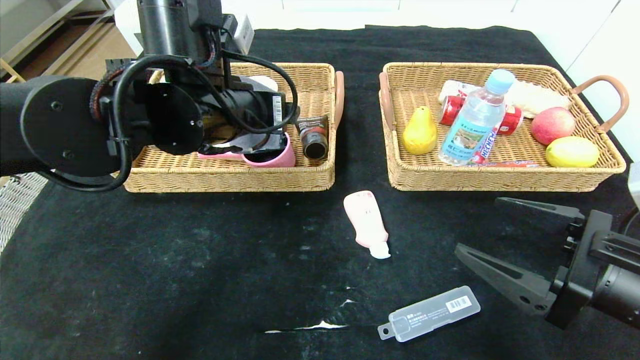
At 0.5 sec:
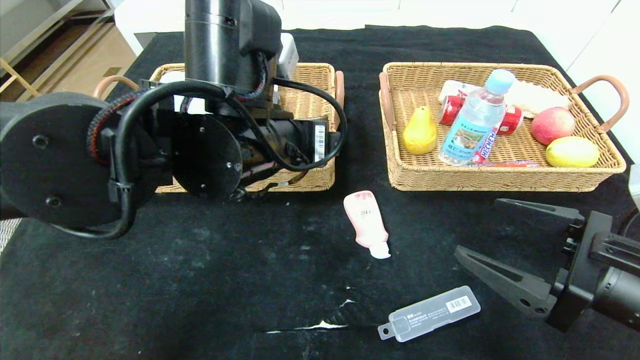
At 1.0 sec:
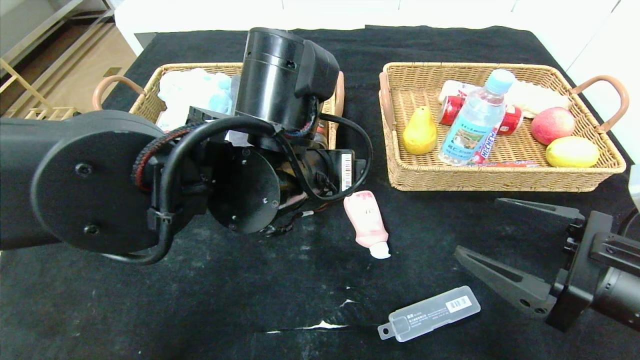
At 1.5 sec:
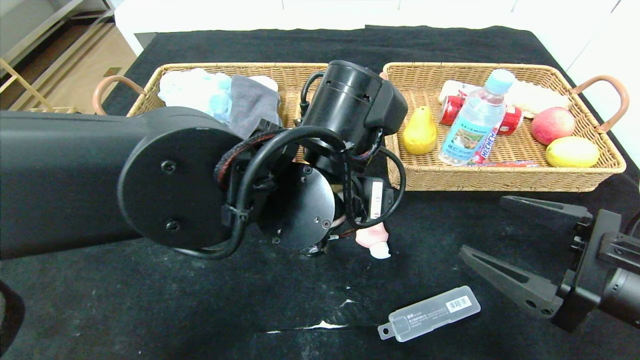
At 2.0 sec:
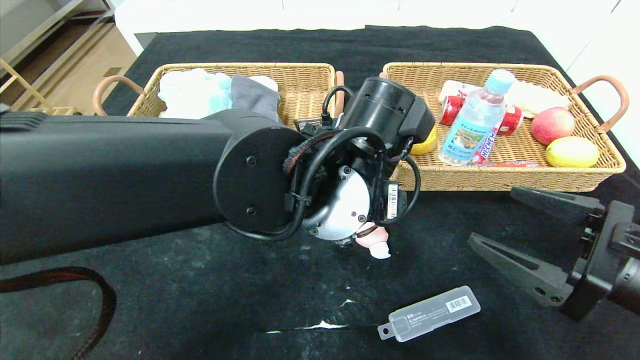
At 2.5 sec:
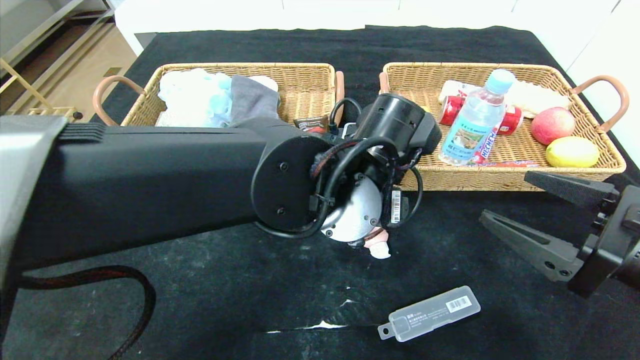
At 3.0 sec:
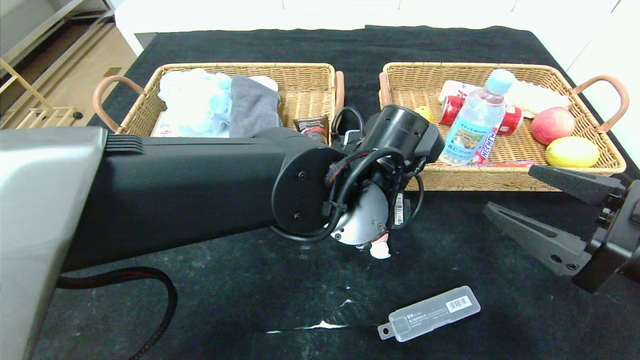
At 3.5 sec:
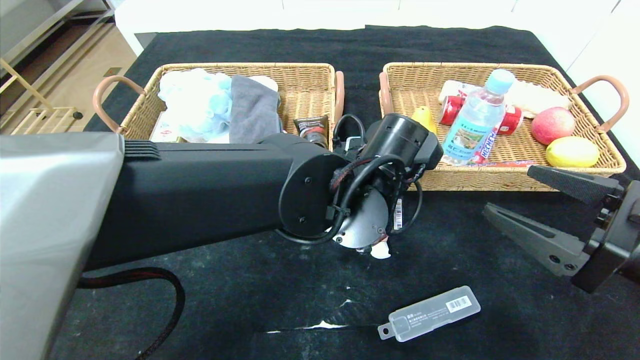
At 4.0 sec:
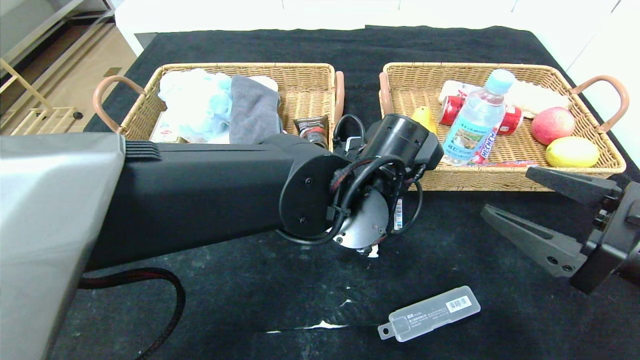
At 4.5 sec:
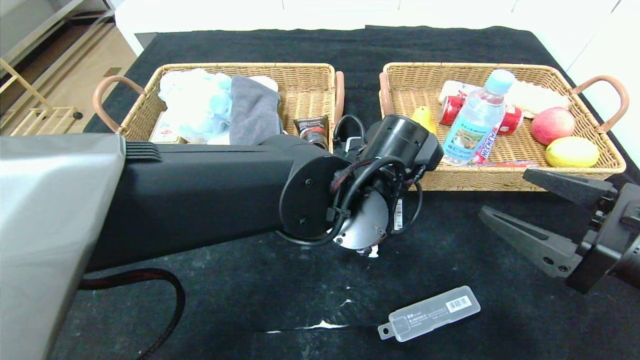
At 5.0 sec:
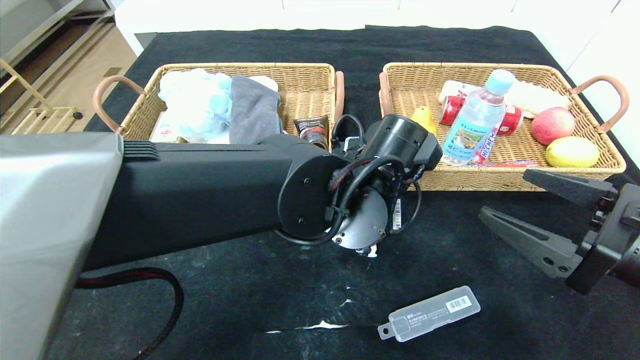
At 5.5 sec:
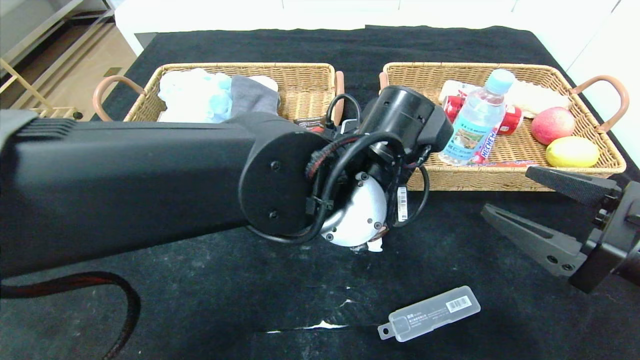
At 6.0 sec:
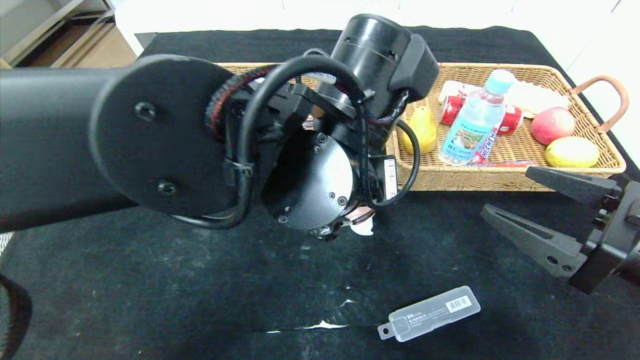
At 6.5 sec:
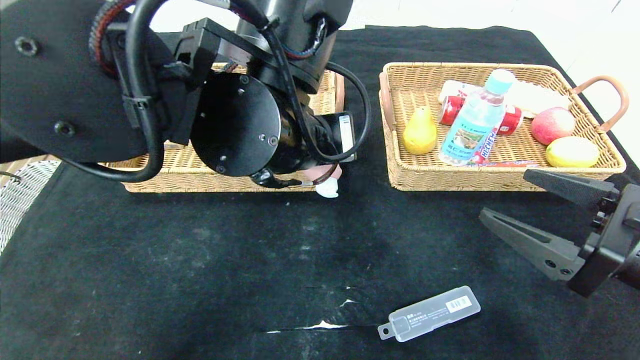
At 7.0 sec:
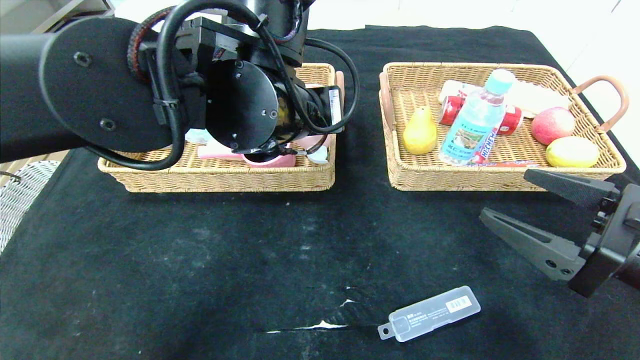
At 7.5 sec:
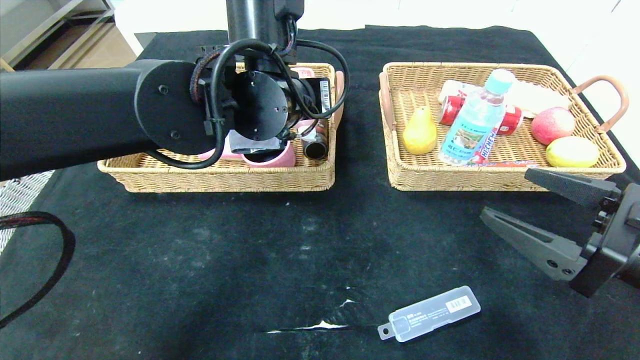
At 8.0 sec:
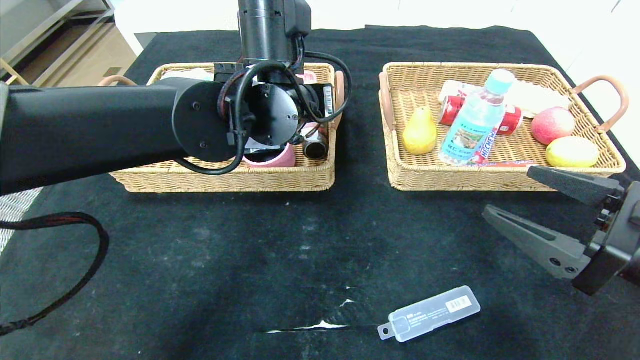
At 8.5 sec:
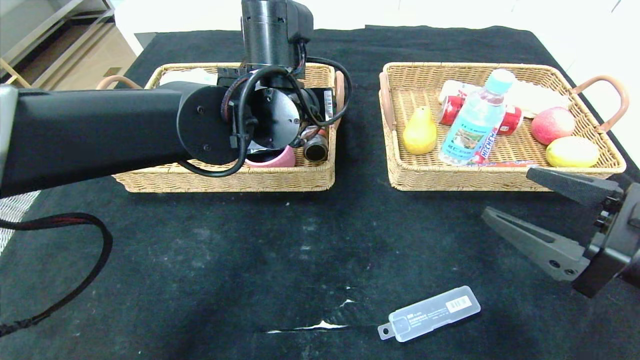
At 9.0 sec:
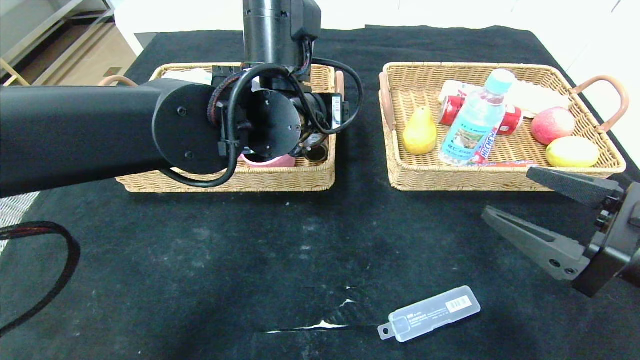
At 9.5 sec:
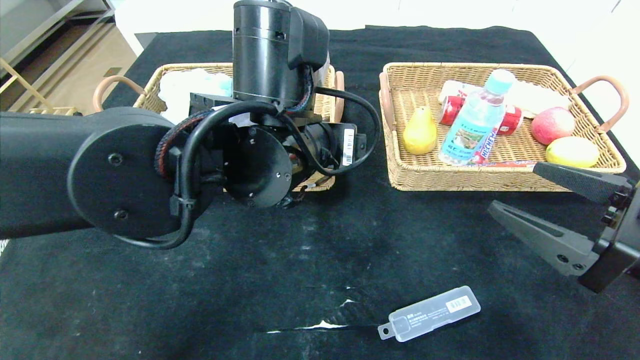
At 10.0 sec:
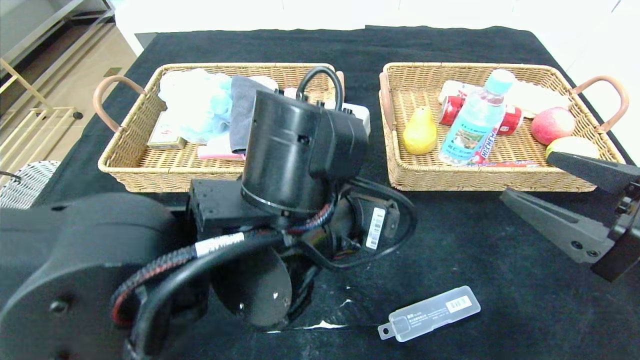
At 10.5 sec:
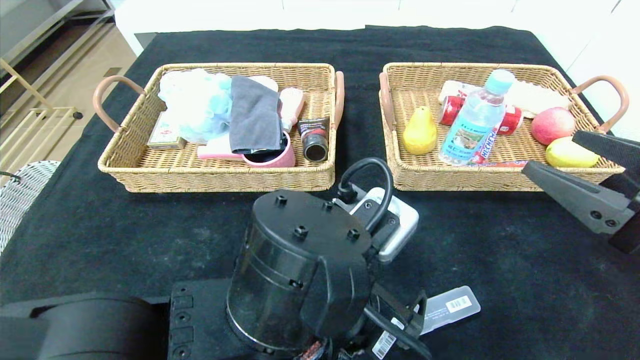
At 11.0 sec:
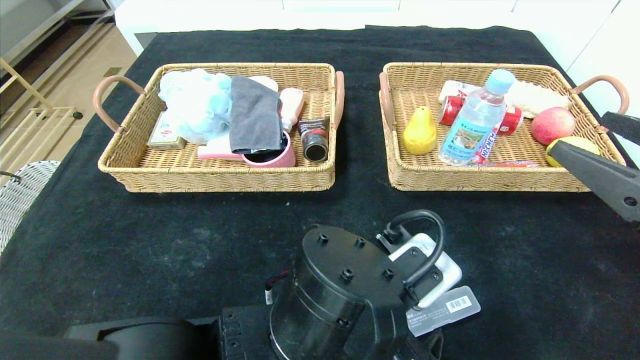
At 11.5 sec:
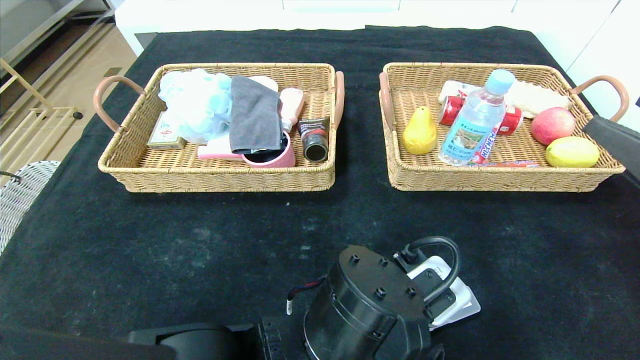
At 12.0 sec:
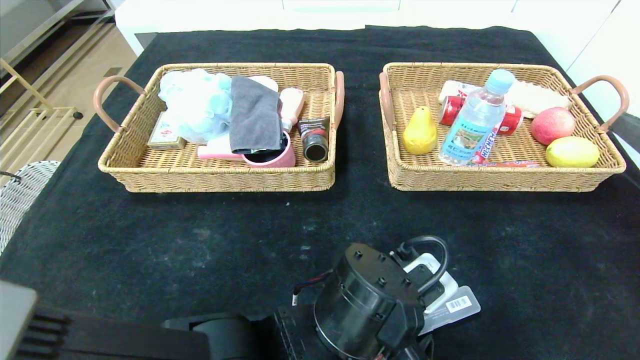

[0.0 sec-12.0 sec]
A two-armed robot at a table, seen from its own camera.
Step, 0.0 sec to 8.5 sec: Grasp the detergent and put it in the left basket.
0.0 sec to 2.0 sec: The left gripper is displaced to the right, downward and backward by approximately 15 cm.
2.0 sec to 4.0 sec: The left gripper closes up.
4.0 sec to 6.0 sec: The left gripper goes roughly 5 cm upward.
6.0 sec to 8.0 sec: The left gripper shifts about 15 cm forward and to the left.
8.0 sec to 10.0 sec: The left gripper moves backward and downward, approximately 15 cm, and opens its fingers.
10.0 sec to 12.0 sec: The left gripper travels downward by some 10 cm. The right gripper shifts by approximately 5 cm.

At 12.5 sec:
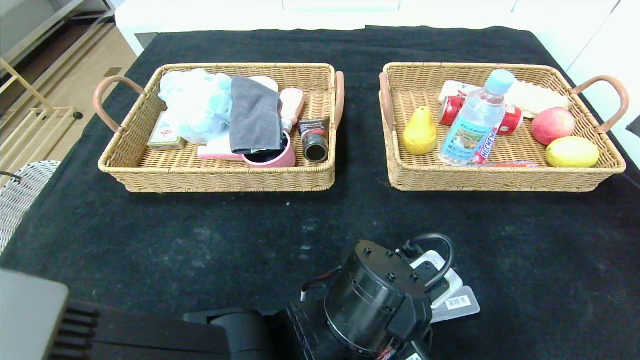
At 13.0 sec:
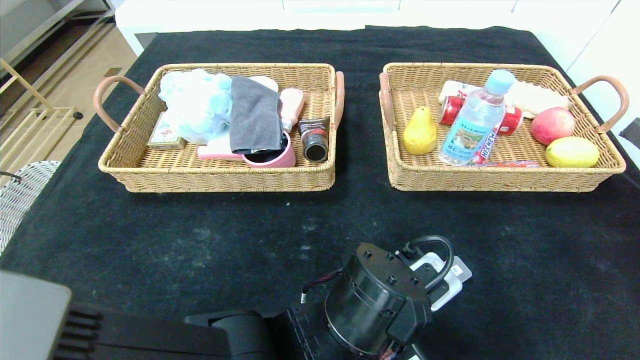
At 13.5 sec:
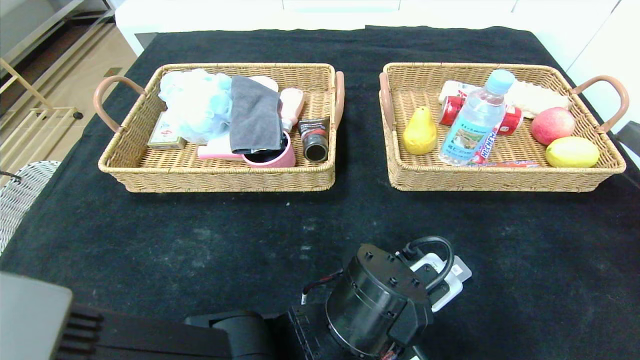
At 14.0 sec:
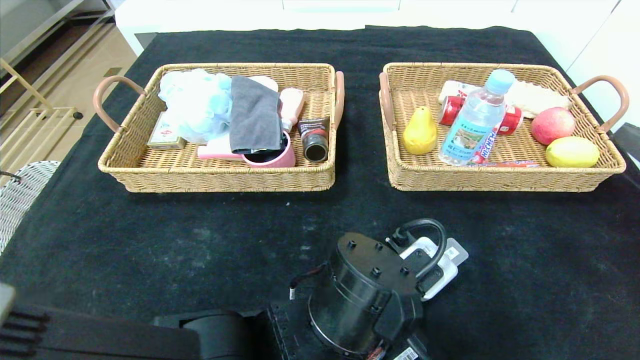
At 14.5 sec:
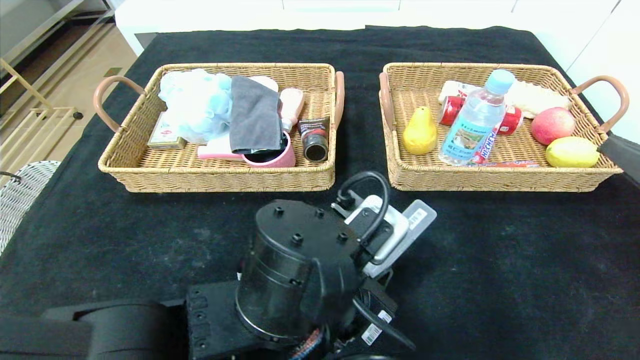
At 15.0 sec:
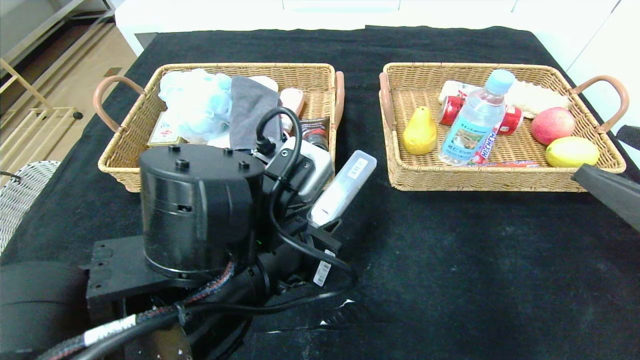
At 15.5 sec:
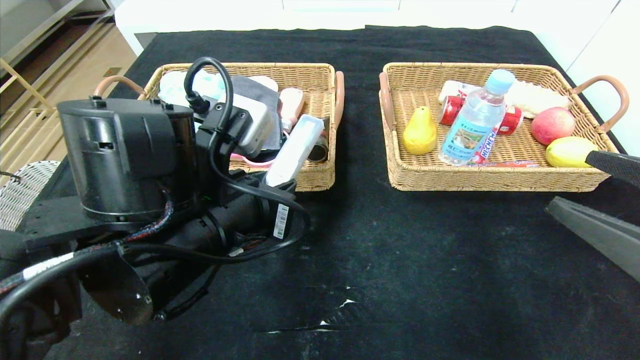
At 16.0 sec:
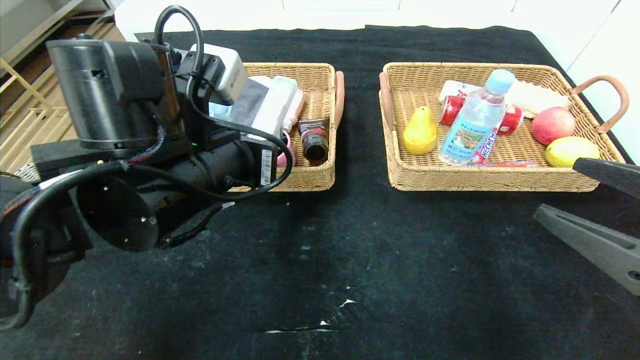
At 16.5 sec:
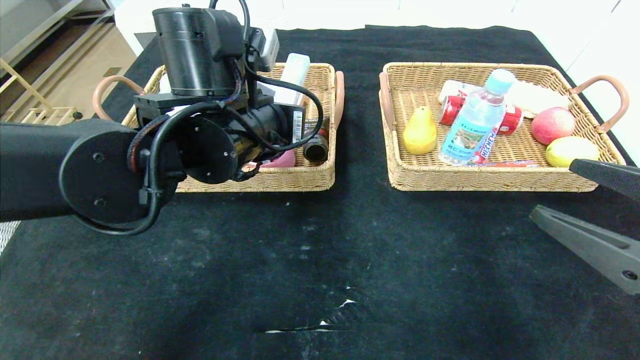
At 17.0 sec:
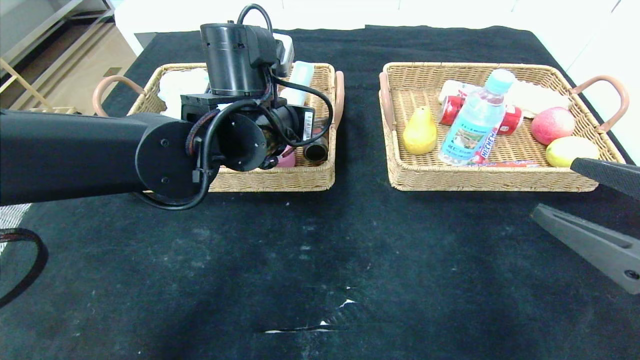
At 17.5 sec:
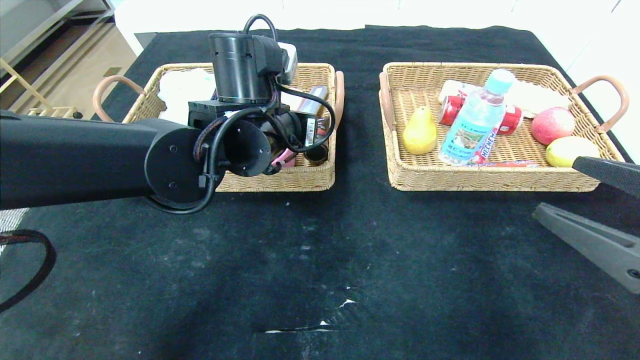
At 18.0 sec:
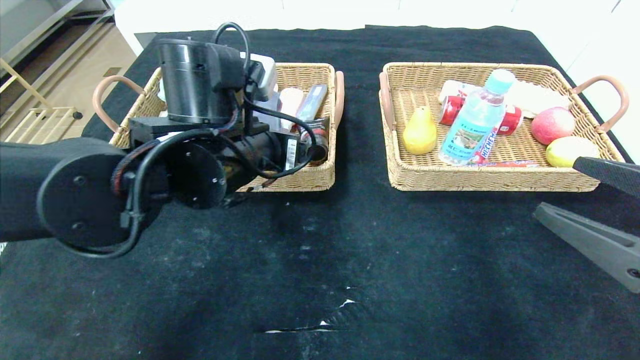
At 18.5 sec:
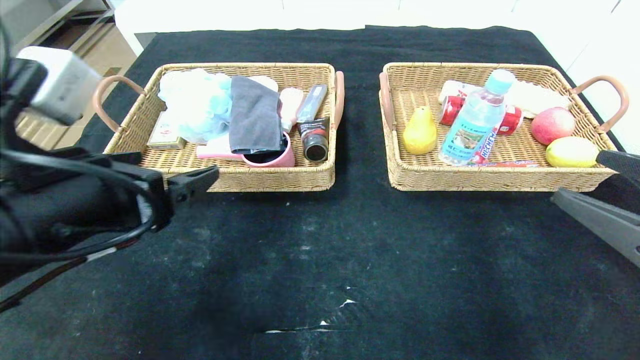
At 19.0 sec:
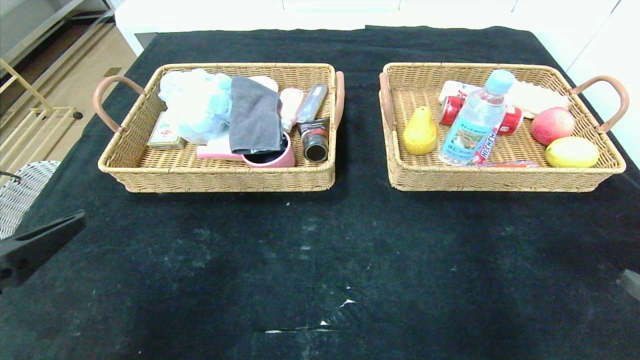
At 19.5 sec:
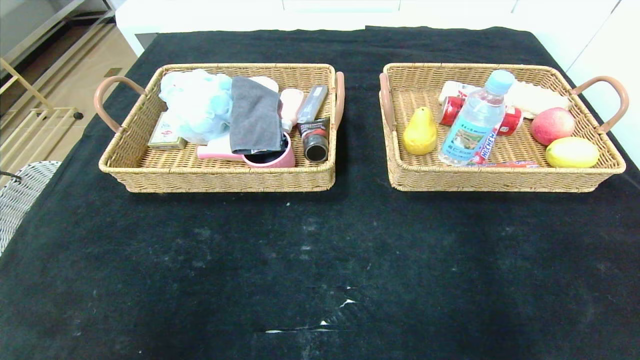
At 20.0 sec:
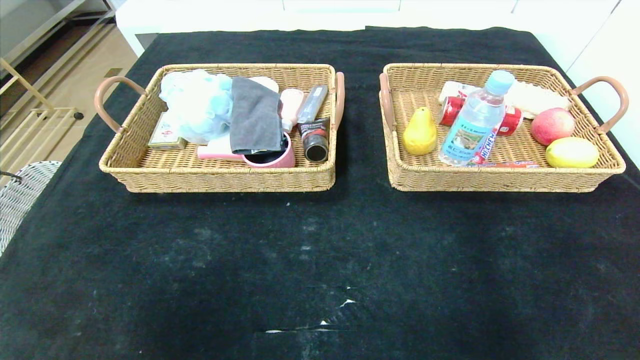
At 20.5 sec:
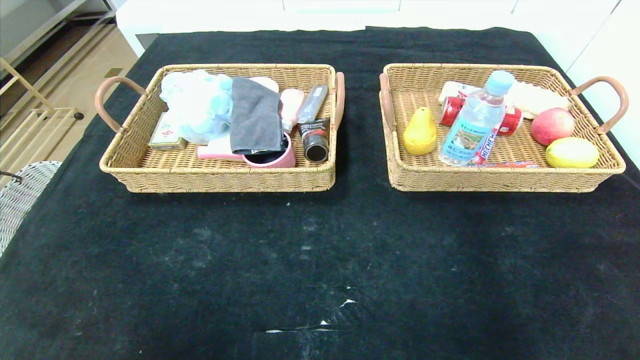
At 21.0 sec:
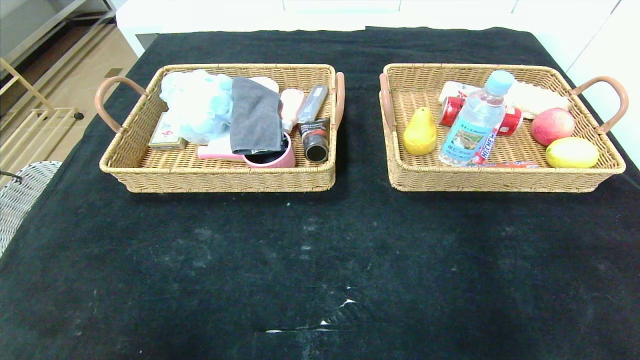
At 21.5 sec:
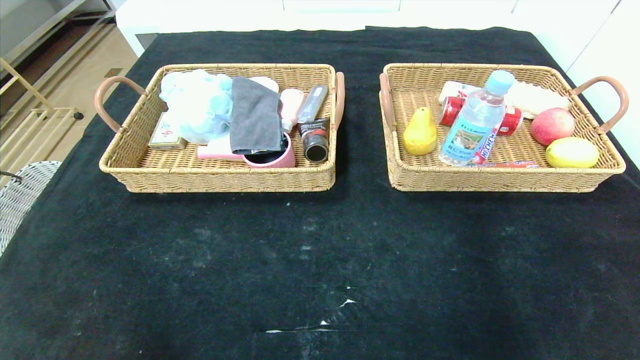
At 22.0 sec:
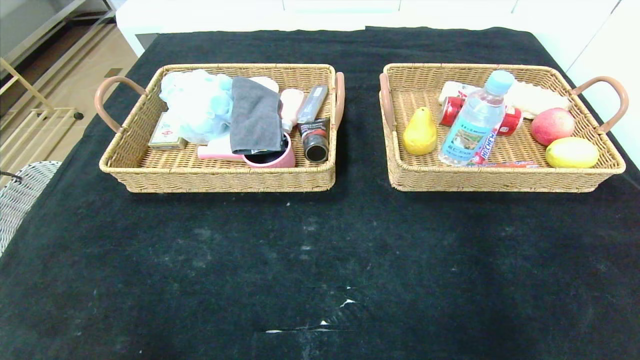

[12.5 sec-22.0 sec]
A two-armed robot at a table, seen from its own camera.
Step, 12.5 sec to 17.0 sec: Grasp the compass and put it in the left basket.
12.5 sec to 14.5 sec: The left gripper shifts by about 5 cm, and closes up.
14.5 sec to 16.5 sec: The left gripper goes some 20 cm forward, upward and to the left.
16.5 sec to 18.0 sec: The left gripper opens its fingers.
18.0 sec to 20.0 sec: The left gripper goes about 40 cm backward and to the left. Meanwhile the right gripper goes approximately 20 cm backward.
